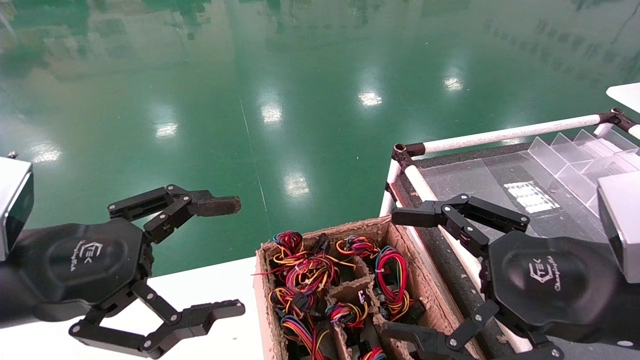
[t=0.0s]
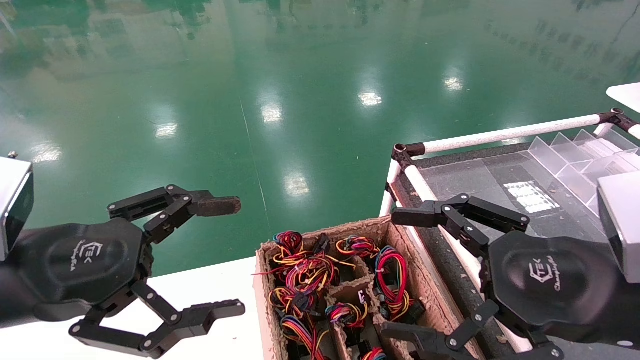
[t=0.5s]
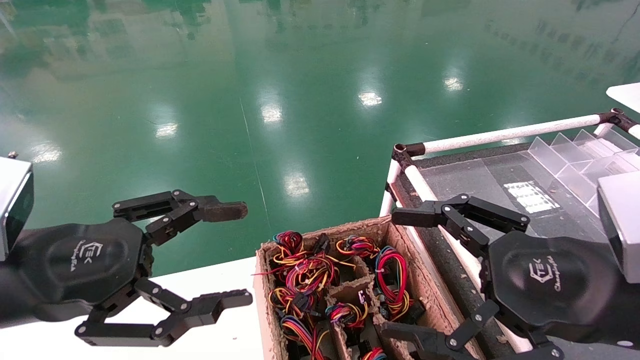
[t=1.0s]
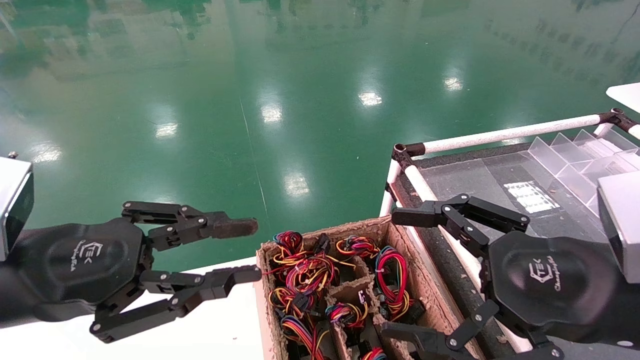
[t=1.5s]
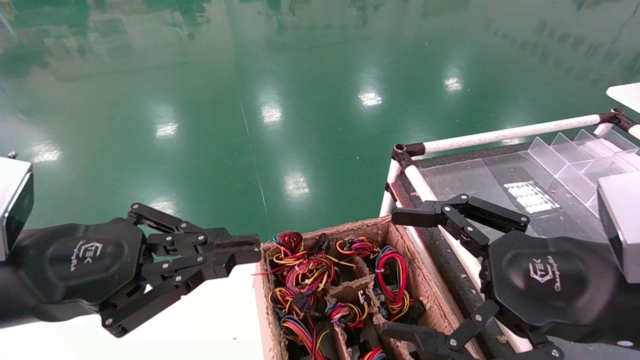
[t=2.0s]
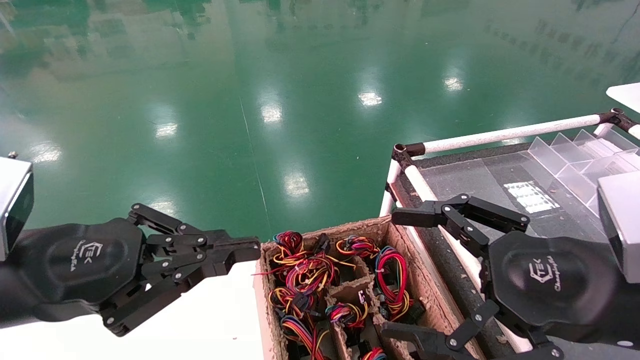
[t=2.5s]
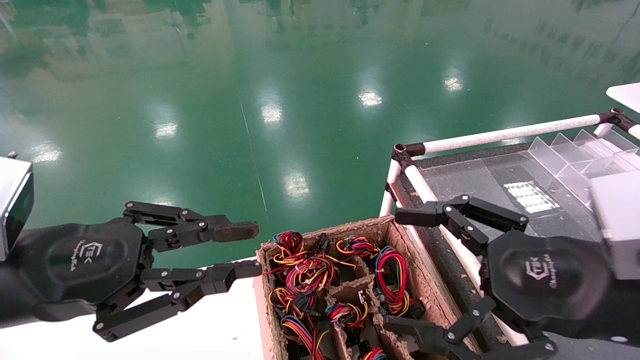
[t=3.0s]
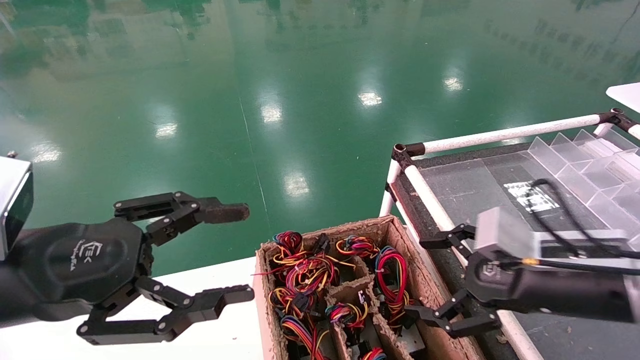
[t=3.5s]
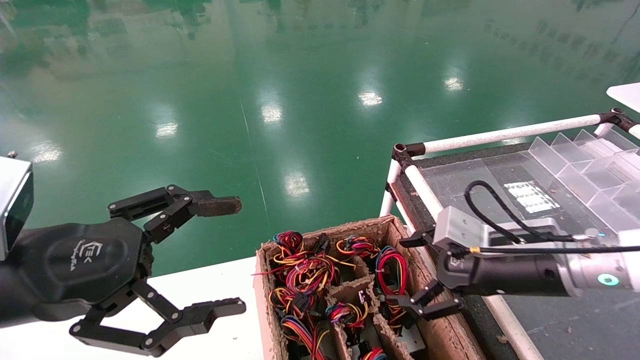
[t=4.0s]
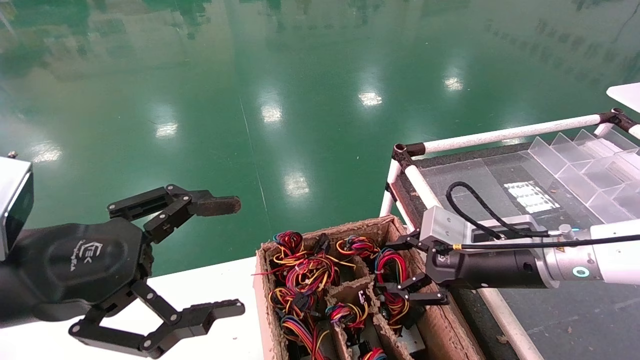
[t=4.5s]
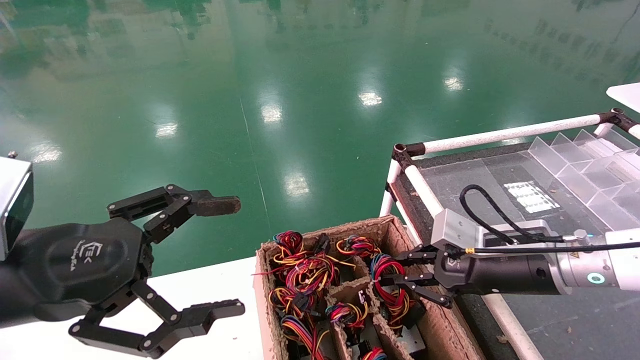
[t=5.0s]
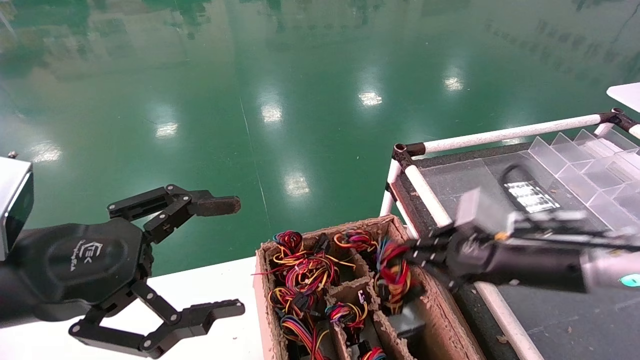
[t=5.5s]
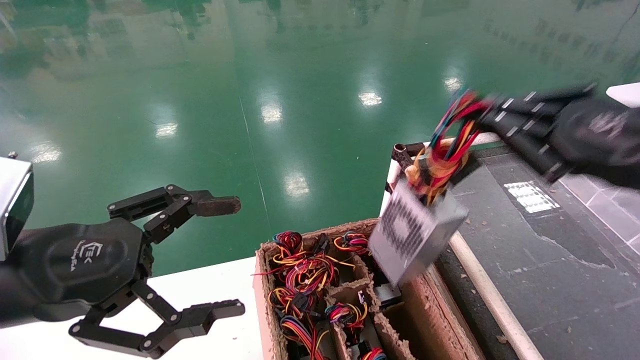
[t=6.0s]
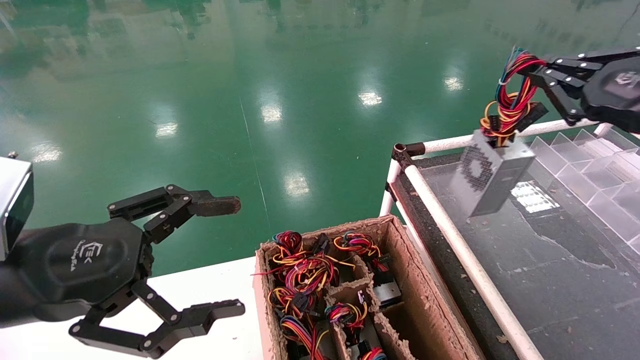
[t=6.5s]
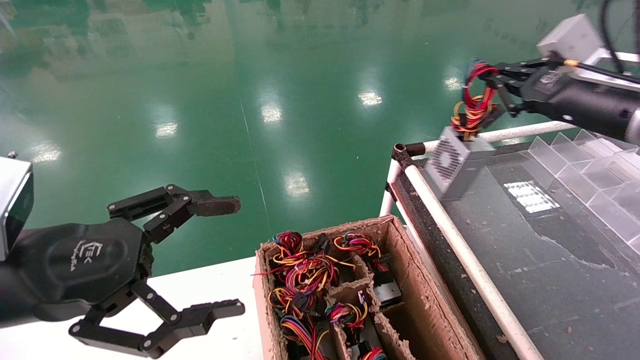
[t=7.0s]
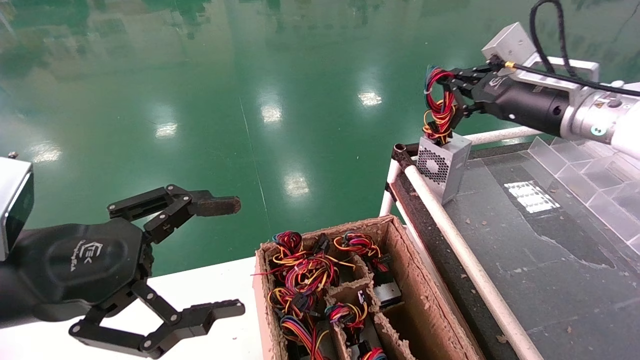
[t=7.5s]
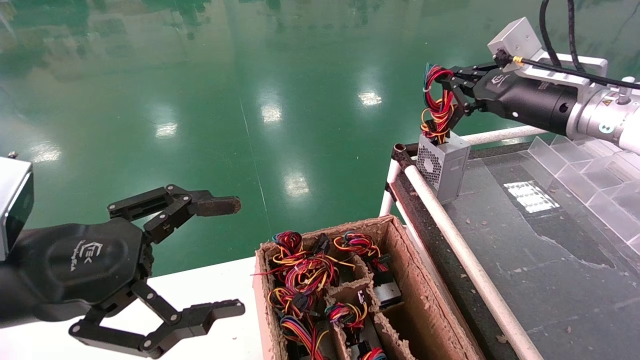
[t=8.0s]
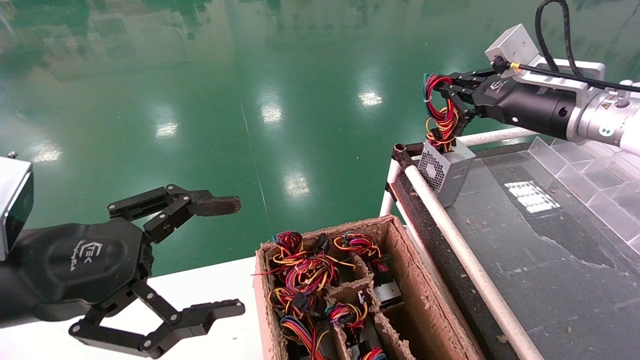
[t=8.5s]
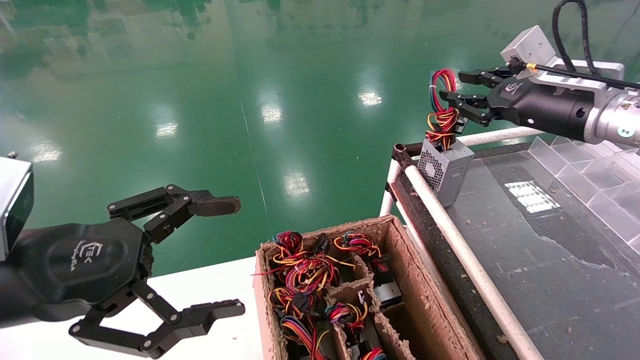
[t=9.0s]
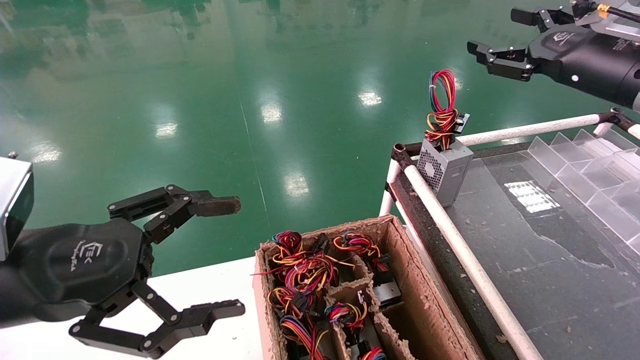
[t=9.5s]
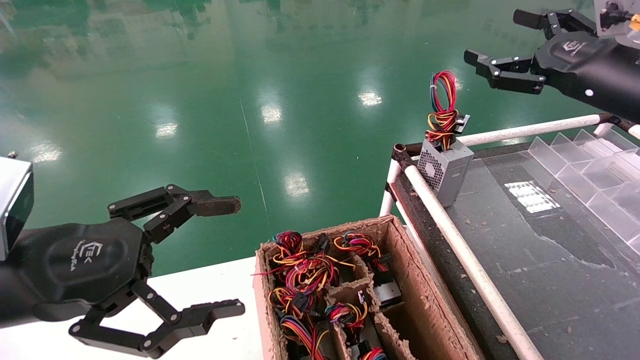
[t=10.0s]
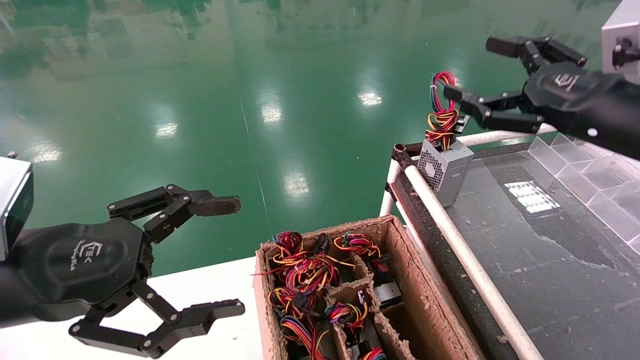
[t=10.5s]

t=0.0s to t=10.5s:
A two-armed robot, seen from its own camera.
Step, t=2.5s to t=5.0s: Grab and lift the power supply from the large box.
Step, t=5.5s to t=8.0s: Place the power supply on the operating table.
t=0.0s to t=2.0s: The left gripper closes.
t=2.0s to t=4.0s: The left gripper opens; the right gripper is displaced forward by some 15 cm.
t=4.0s to t=6.5s: The right gripper shifts about 20 cm upward and to the right, and closes.
t=6.5s to t=8.5s: The right gripper travels forward and to the left by some 15 cm.
t=8.5s to t=10.5s: The right gripper shifts about 10 cm backward, and opens up.

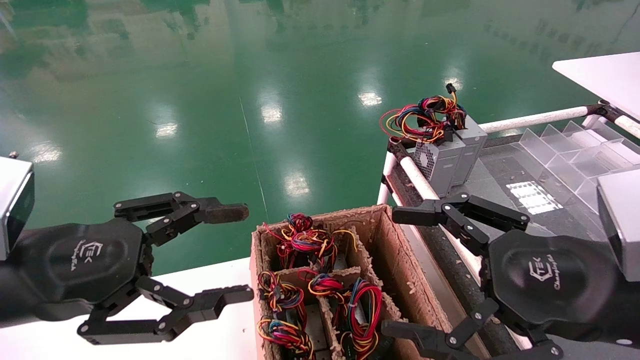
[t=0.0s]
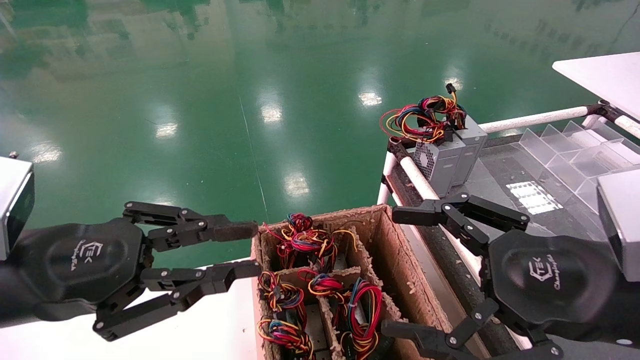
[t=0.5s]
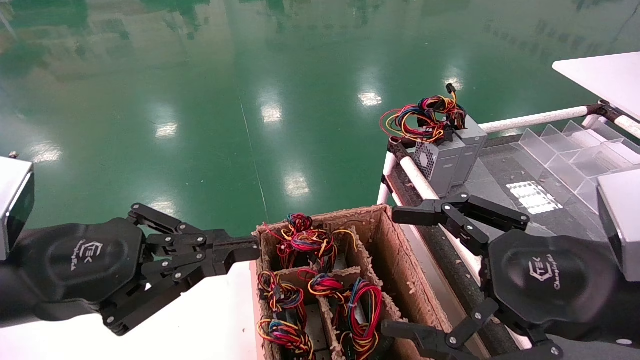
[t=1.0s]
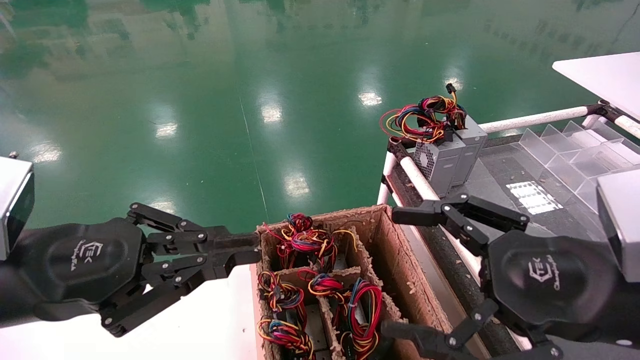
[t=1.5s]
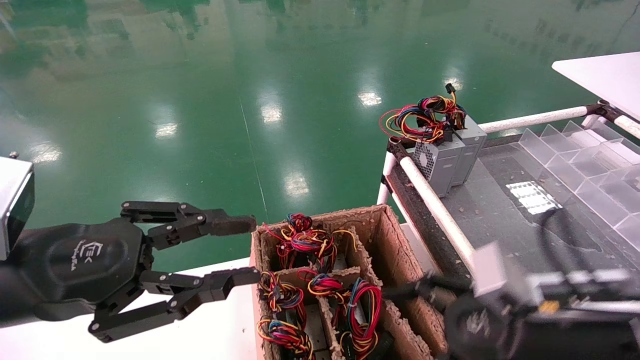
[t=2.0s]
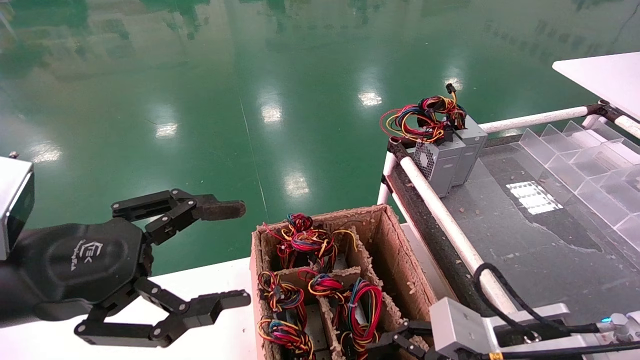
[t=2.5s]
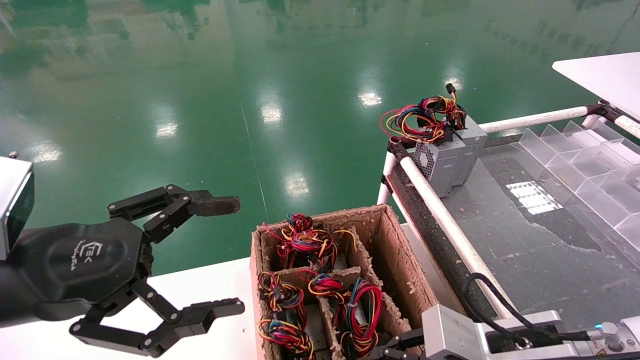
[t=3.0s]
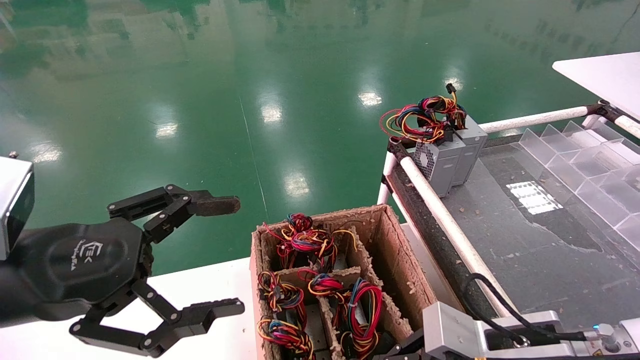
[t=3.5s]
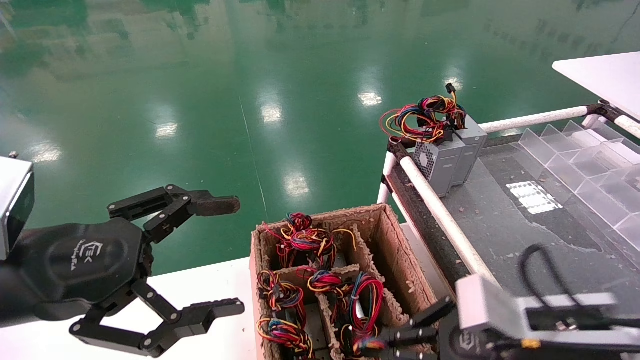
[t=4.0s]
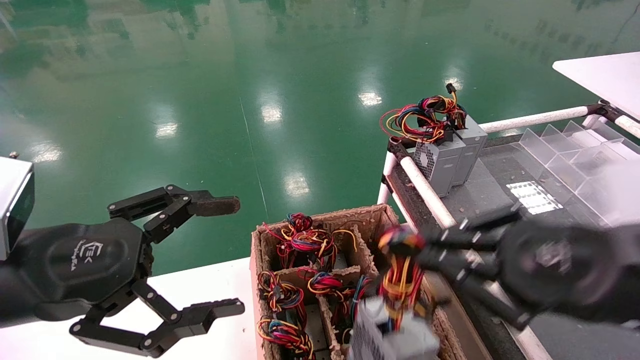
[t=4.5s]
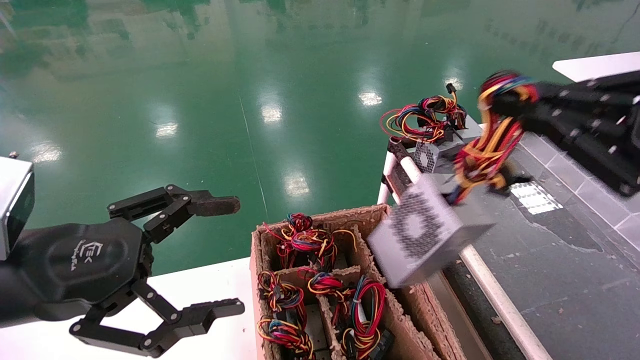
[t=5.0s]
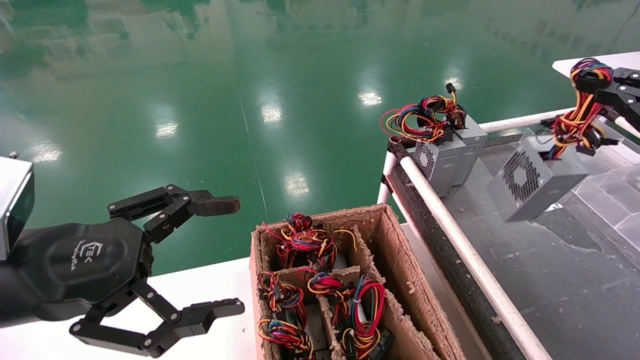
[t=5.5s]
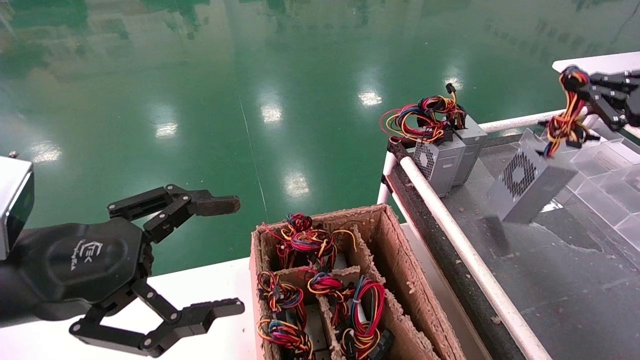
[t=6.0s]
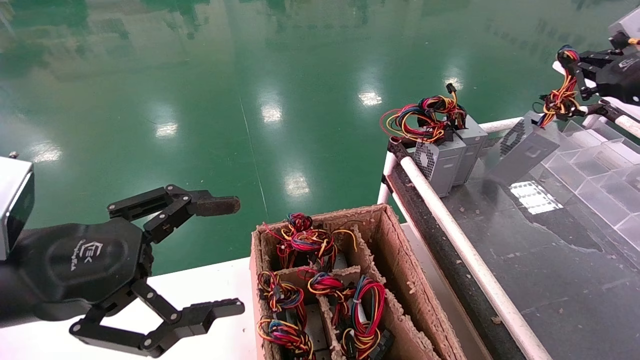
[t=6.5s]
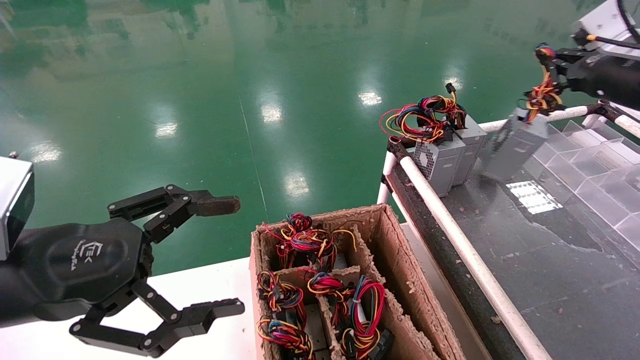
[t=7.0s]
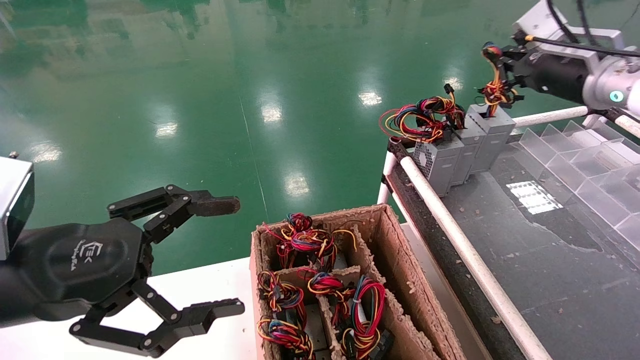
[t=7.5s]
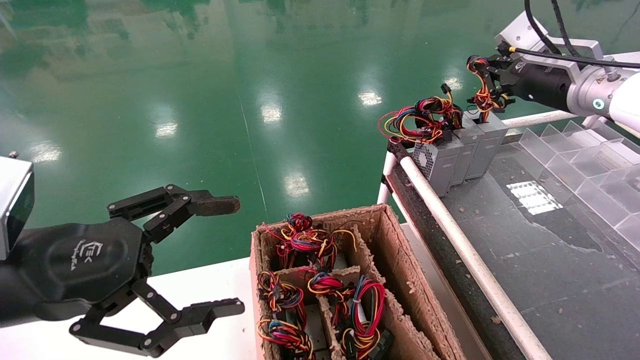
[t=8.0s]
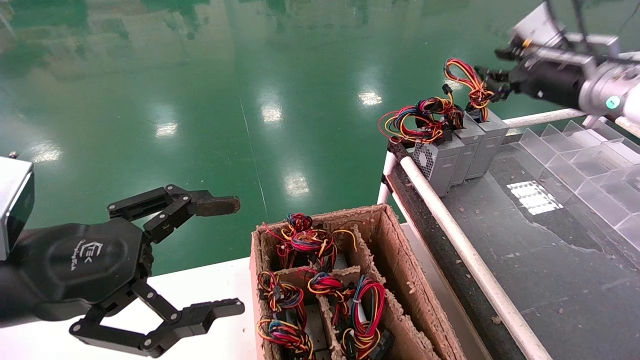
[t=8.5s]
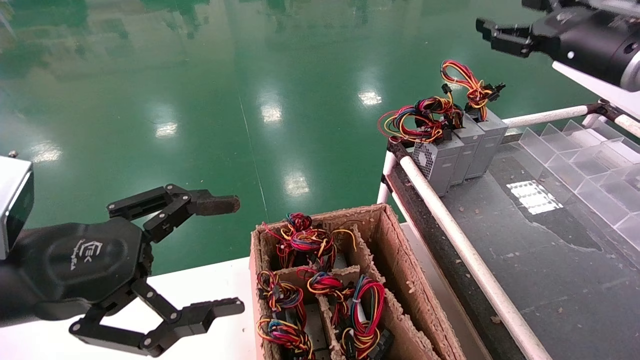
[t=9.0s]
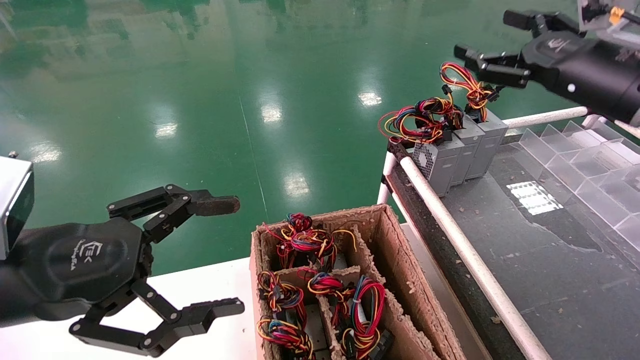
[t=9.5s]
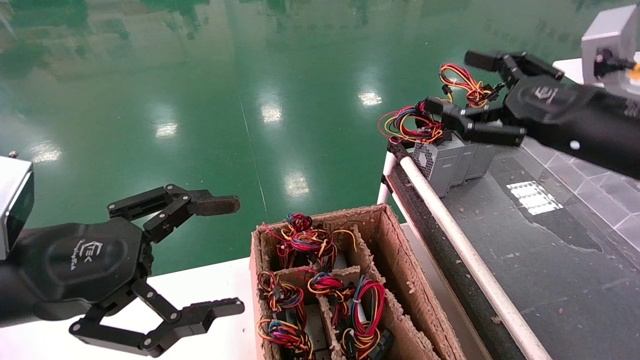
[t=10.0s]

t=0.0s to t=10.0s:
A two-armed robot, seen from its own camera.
Step, t=1.5s to t=3.5s: Grab and lift the power supply from the large box.
Step, t=4.0s to t=8.0s: Place the power supply on the operating table.
t=0.0s to t=2.0s: The right gripper is displaced downward by some 5 cm, while the left gripper closes.
t=2.0s to t=4.0s: The right gripper closes up. Meanwhile the left gripper opens up.
t=4.0s to t=6.0s: The right gripper heads to the right, upward and forward, covering some 30 cm.
t=6.0s to t=8.0s: The right gripper goes about 15 cm forward and to the left.
t=8.0s to t=10.0s: The right gripper travels backward by roughly 15 cm, and opens up.
